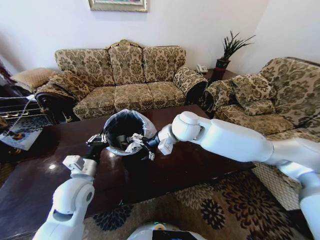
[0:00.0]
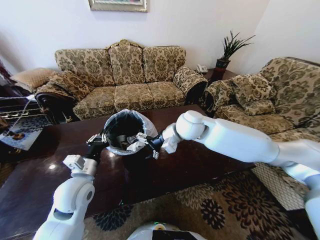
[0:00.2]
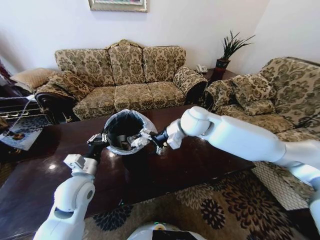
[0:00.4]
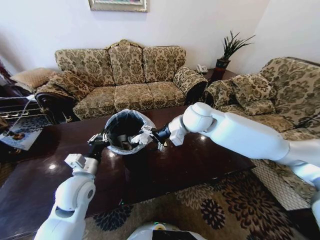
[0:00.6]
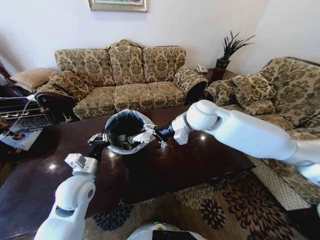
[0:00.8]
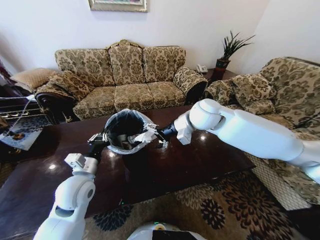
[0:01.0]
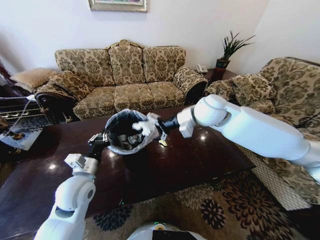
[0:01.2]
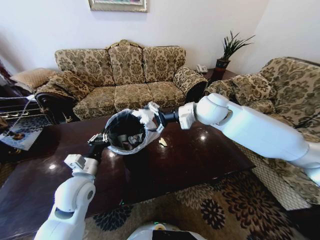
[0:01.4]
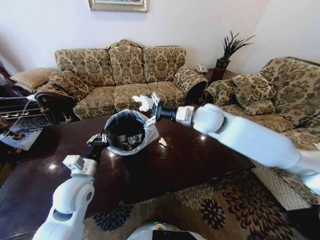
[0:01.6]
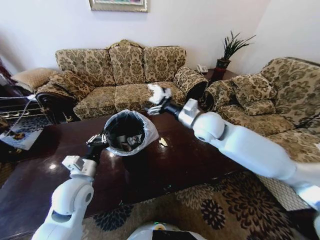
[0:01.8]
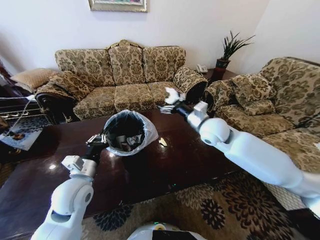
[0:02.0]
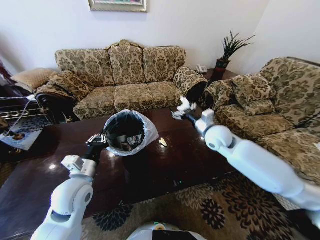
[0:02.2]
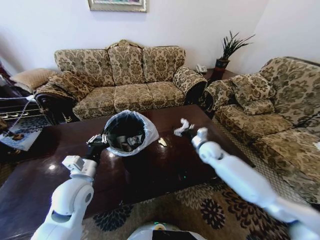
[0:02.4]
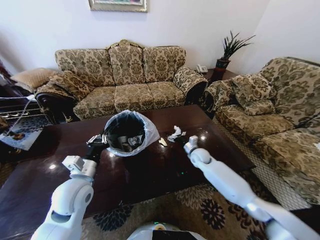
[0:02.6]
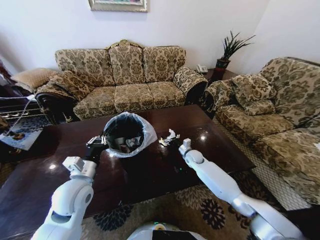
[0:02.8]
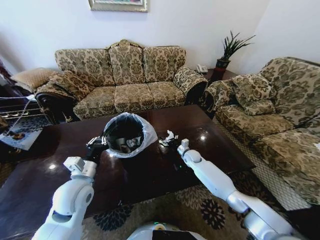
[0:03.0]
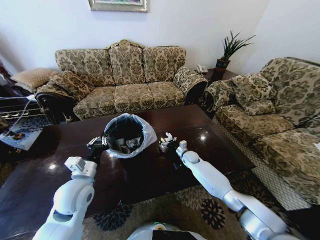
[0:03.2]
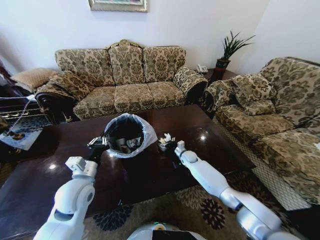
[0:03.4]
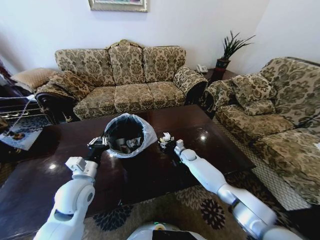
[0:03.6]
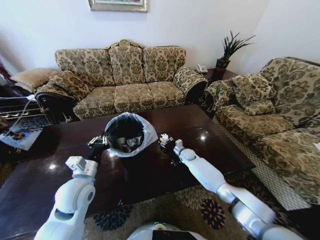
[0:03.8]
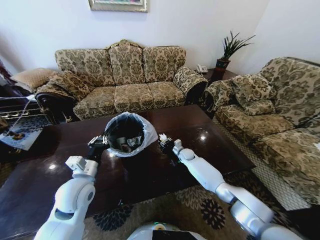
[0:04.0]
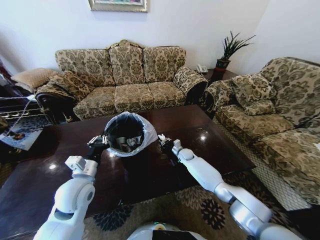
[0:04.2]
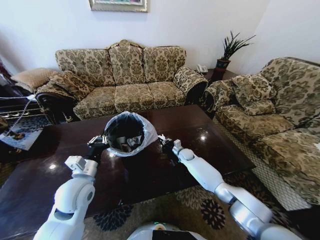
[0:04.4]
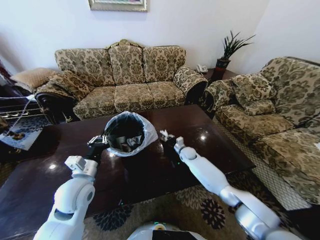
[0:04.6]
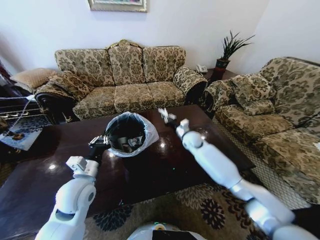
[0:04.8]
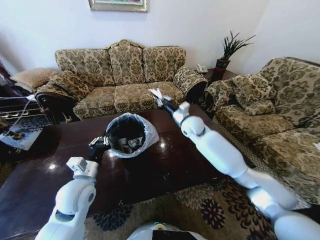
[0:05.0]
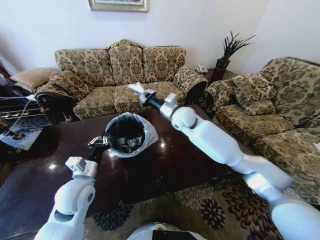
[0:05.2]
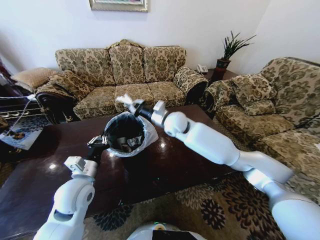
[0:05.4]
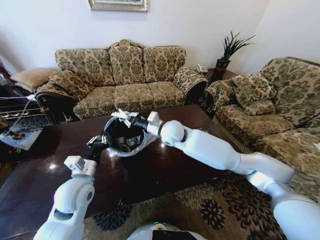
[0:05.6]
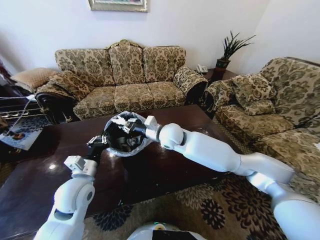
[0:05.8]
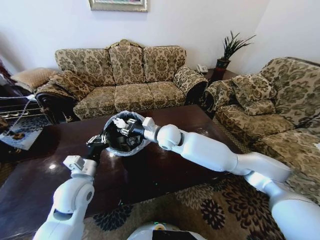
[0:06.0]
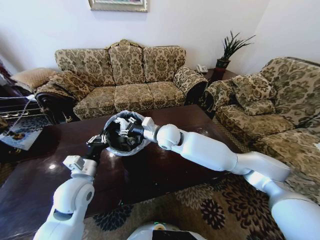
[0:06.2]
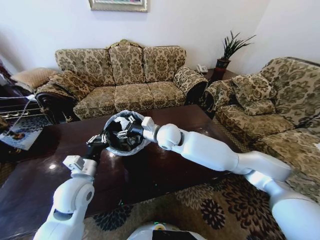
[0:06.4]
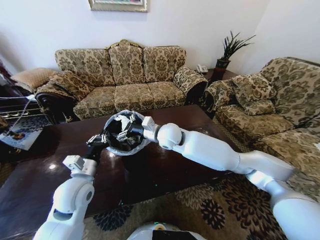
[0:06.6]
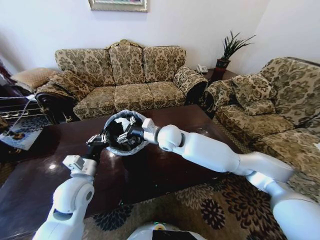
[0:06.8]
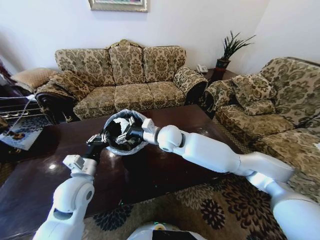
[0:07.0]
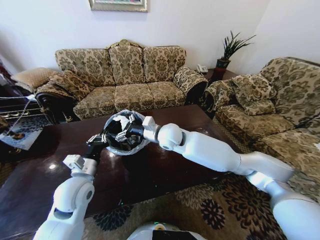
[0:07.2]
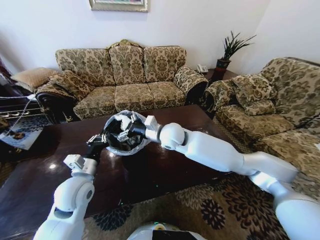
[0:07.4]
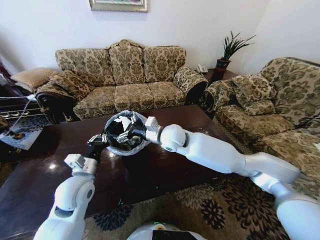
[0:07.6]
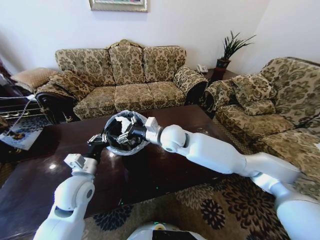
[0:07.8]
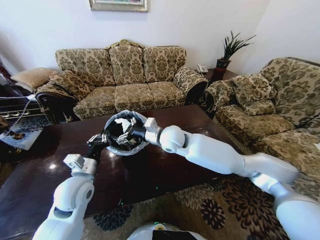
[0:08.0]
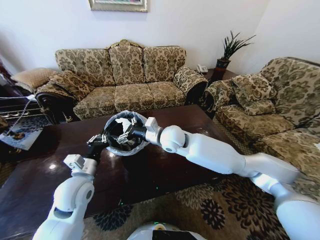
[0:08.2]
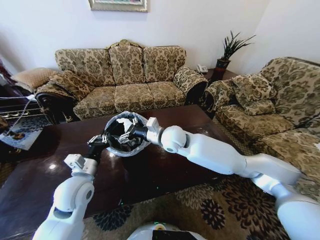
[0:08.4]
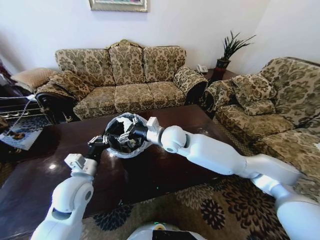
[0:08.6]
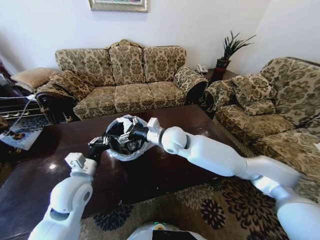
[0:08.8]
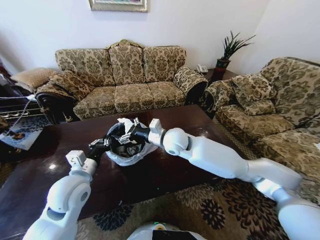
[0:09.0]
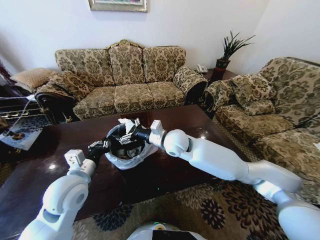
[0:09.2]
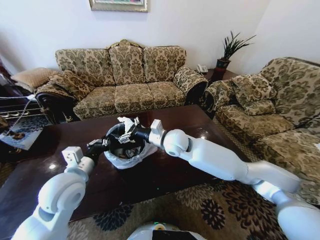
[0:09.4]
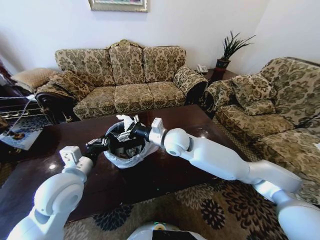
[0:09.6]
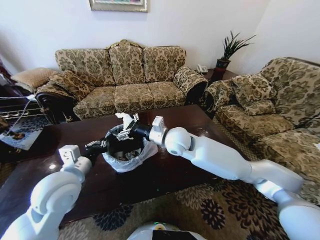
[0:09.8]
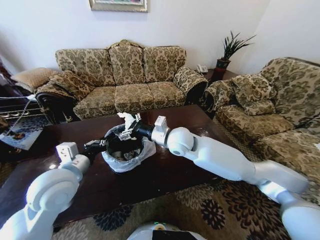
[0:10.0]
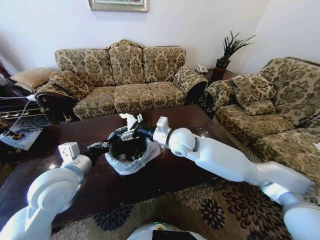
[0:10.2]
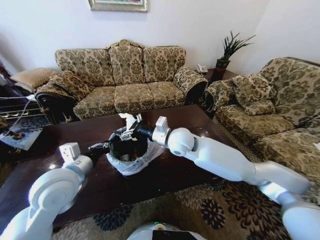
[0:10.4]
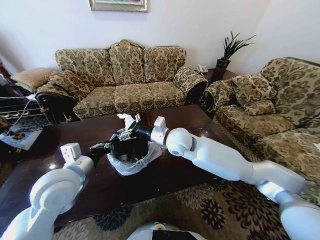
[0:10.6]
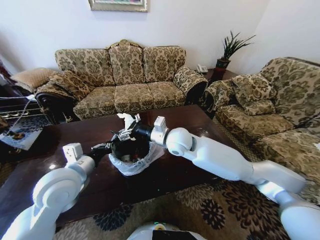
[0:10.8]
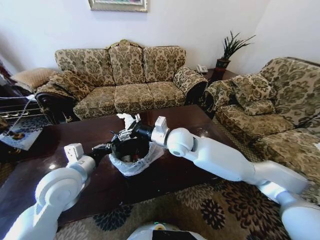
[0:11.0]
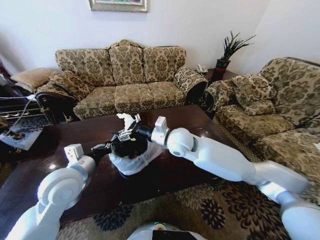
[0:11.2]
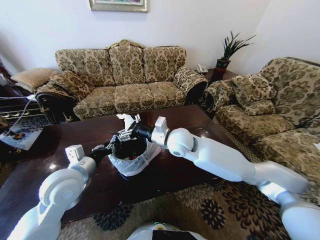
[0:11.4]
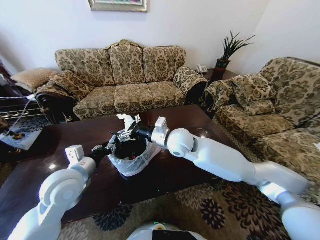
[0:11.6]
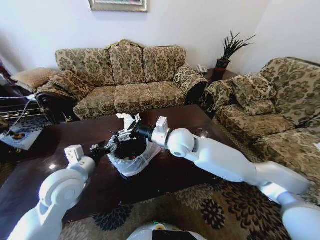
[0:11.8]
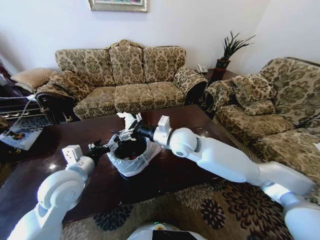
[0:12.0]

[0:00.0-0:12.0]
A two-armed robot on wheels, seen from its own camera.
Task of the whole recording: Move to the front of the table and place the trash on the table into the trash bin.
0:00.0 to 0:01.6: The right gripper goes about 5 cm to the right.
0:01.6 to 0:03.0: The right gripper is displaced downward by roughly 35 cm.
0:03.0 to 0:04.4: The right gripper closes.
0:04.4 to 0:06.0: The right gripper travels upward and to the left by roughly 30 cm.
0:06.0 to 0:07.6: The right gripper opens.
0:07.6 to 0:09.0: There are only small adjustments of the grippers.
0:09.0 to 0:10.4: The left gripper is displaced upward by some 5 cm.
0:10.4 to 0:12.0: The left gripper opens its fingers.

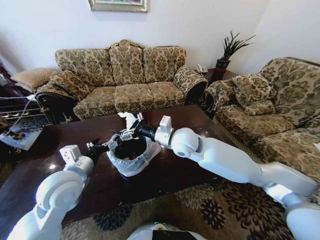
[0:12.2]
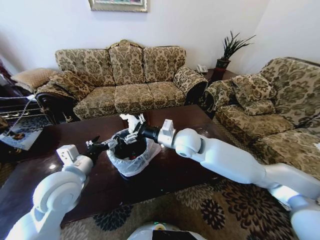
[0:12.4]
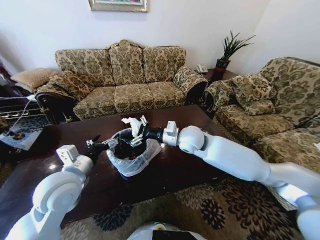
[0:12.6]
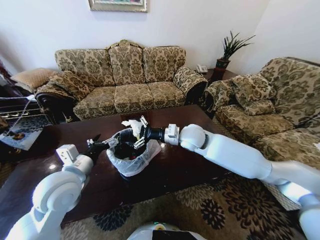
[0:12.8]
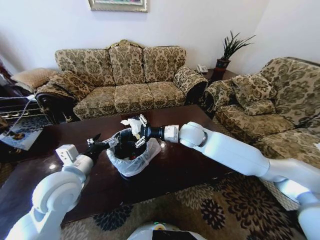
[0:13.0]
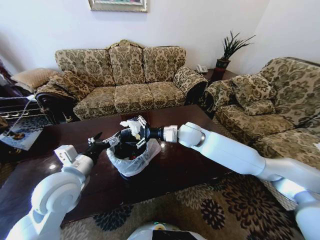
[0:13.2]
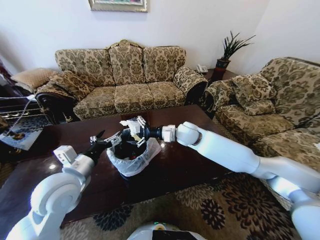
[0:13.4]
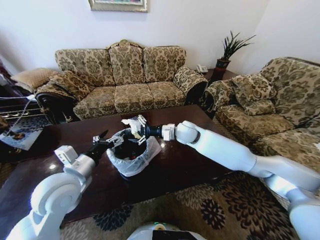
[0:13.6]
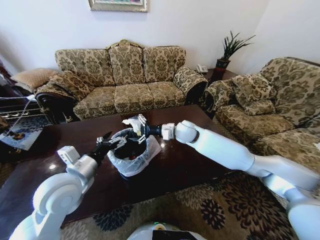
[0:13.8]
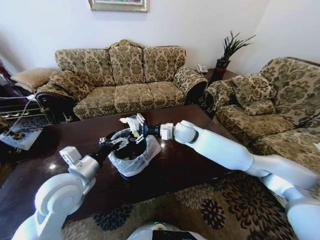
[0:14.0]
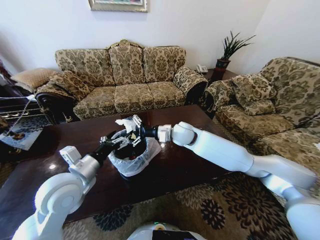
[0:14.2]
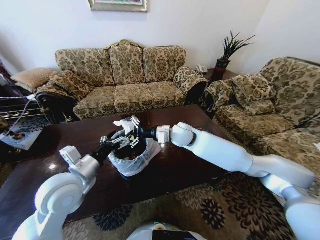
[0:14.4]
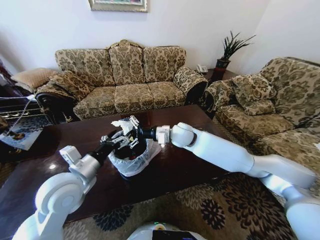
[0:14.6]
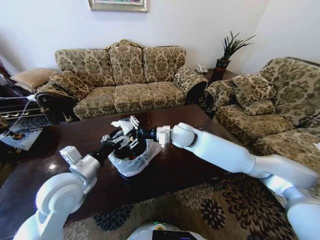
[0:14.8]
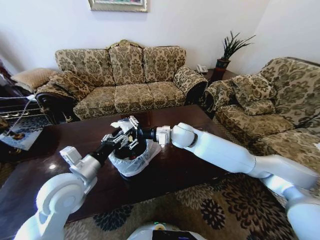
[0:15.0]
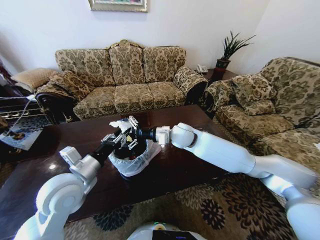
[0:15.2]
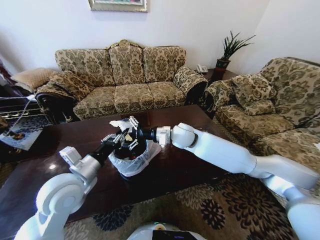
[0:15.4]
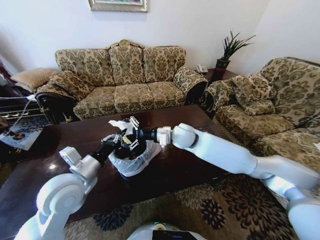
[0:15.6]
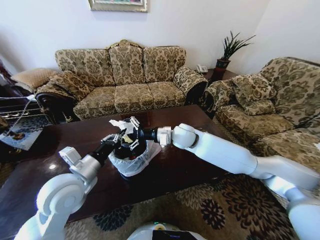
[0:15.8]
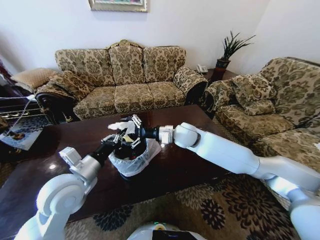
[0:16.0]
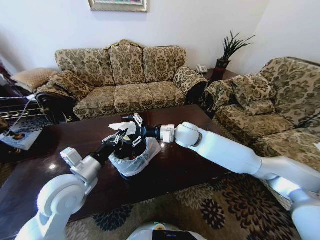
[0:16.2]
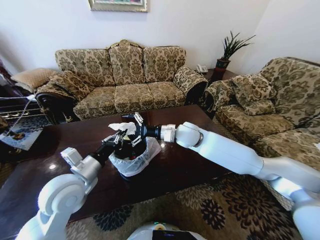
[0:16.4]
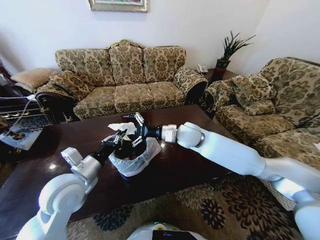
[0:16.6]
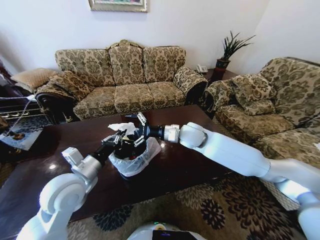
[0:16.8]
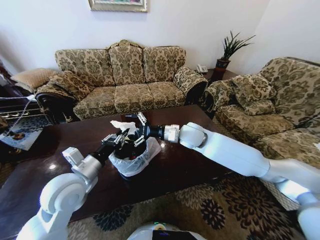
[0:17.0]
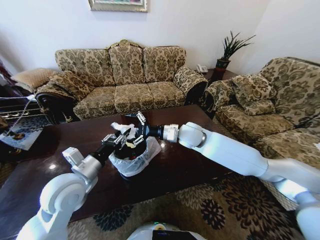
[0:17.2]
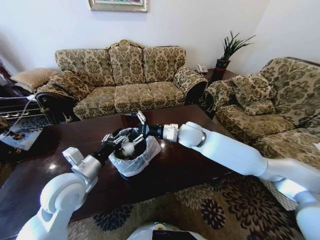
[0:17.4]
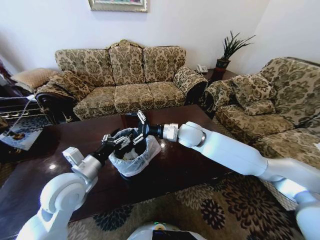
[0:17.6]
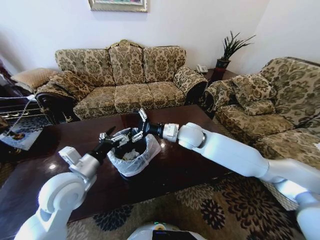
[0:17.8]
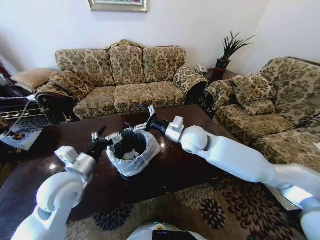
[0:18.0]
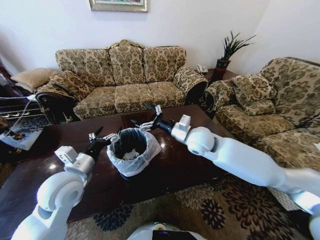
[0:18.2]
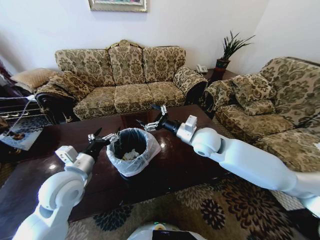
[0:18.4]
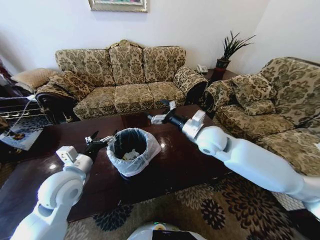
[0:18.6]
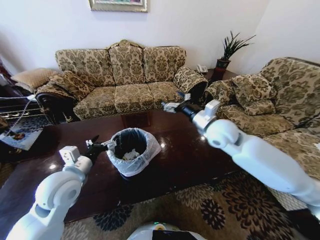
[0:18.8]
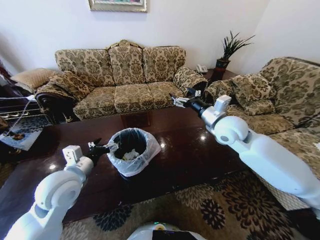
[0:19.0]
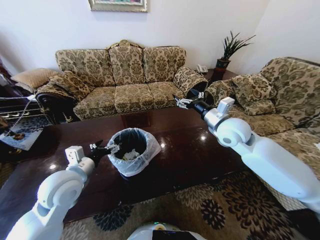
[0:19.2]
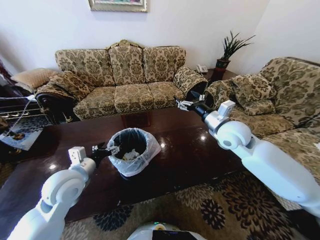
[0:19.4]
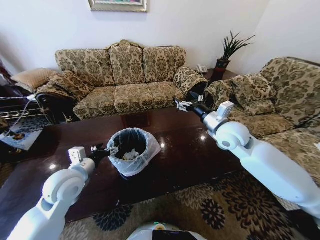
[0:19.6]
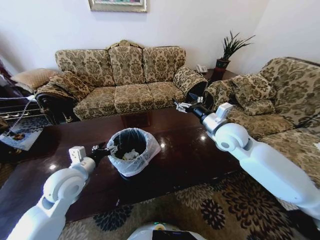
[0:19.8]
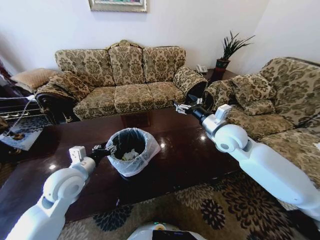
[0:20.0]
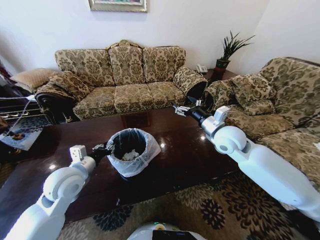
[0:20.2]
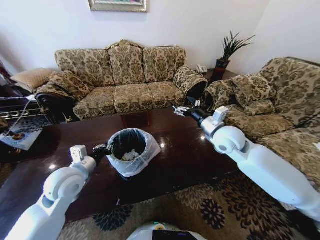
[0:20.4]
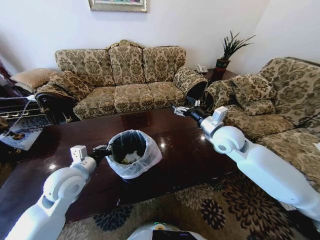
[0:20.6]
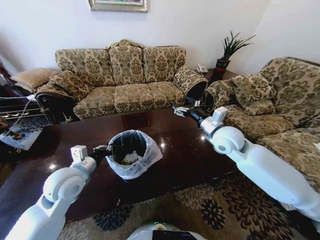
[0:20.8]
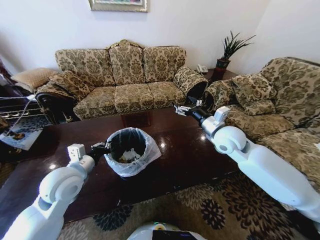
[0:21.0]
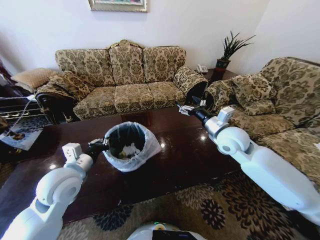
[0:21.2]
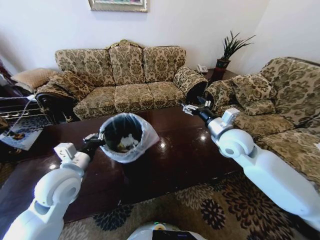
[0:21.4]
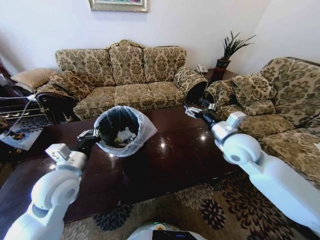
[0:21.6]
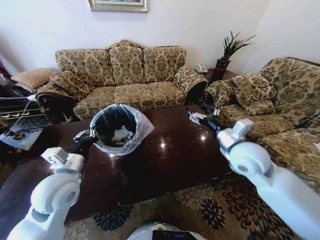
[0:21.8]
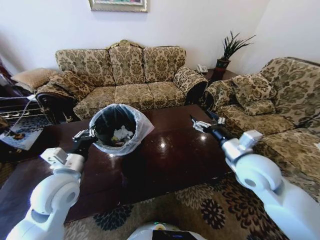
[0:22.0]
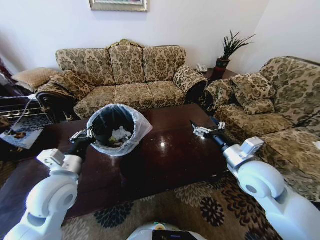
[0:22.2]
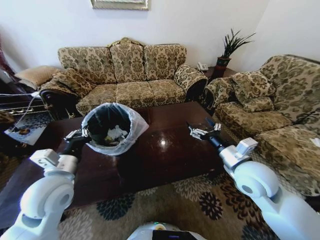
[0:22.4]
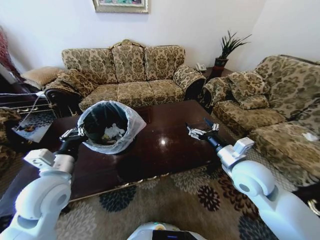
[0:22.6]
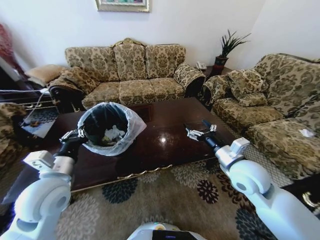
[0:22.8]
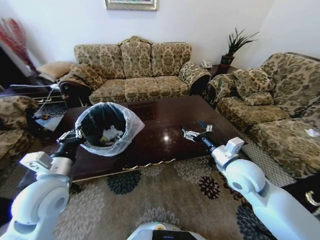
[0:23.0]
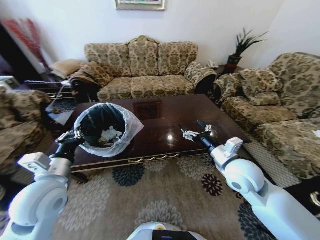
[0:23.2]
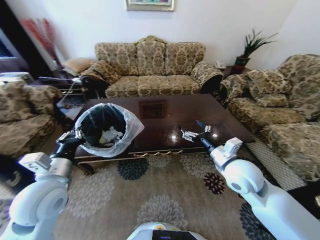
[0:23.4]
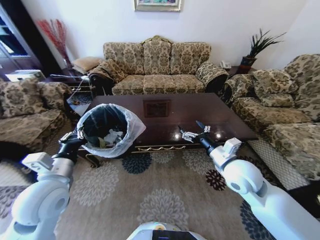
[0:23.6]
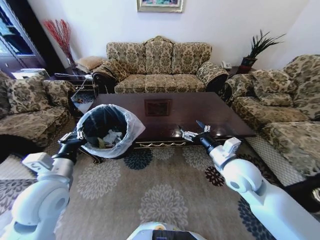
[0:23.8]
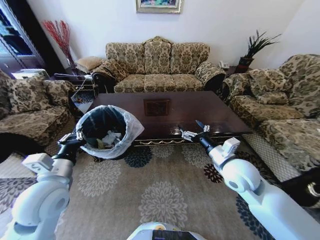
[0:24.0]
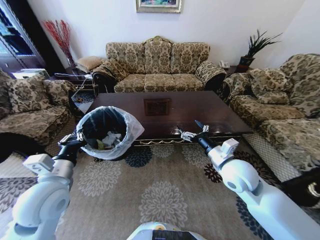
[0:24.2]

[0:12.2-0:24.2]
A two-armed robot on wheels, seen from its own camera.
Task of the whole recording: Move to the front of the table and place the trash on the table into the trash bin.
0:12.2 to 0:13.8: The right gripper goes roughly 10 cm forward.
0:13.8 to 0:15.2: The right gripper shifts by approximately 5 cm; the left gripper closes.
0:15.2 to 0:16.6: The left gripper closes up.
0:16.6 to 0:18.2: The left gripper opens up; the right gripper moves about 5 cm.
0:18.2 to 0:19.8: The right gripper is displaced to the right by roughly 10 cm.
0:19.8 to 0:21.2: The left gripper closes its fingers.
0:21.2 to 0:22.6: The right gripper is displaced backward by some 10 cm.
